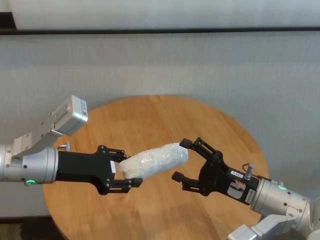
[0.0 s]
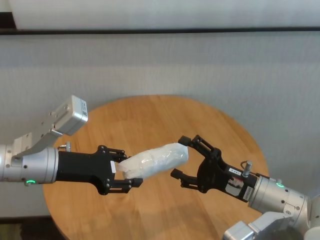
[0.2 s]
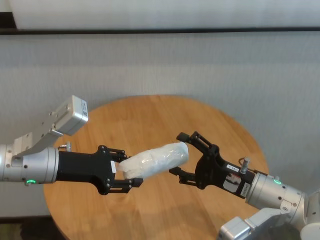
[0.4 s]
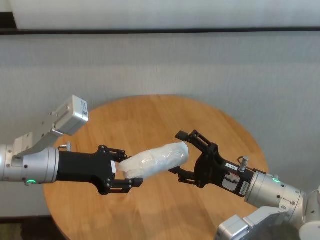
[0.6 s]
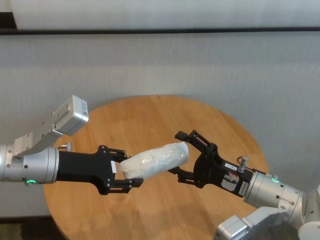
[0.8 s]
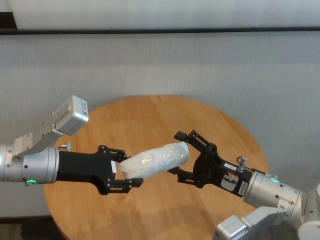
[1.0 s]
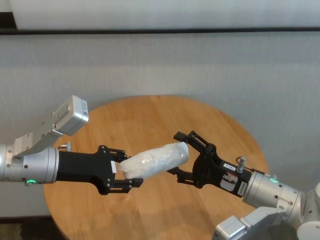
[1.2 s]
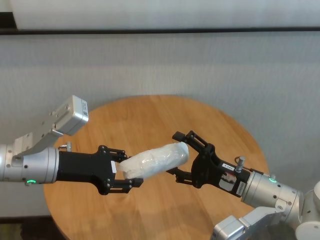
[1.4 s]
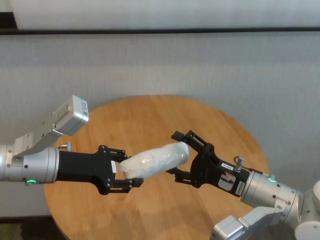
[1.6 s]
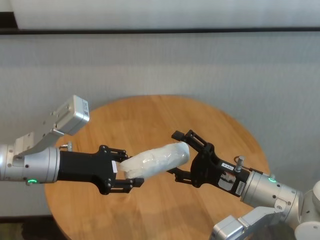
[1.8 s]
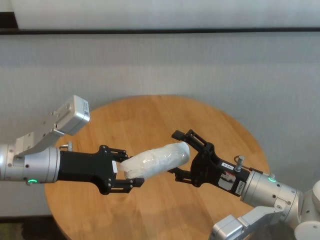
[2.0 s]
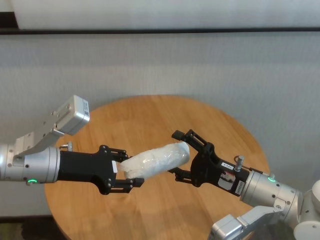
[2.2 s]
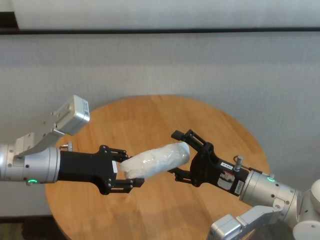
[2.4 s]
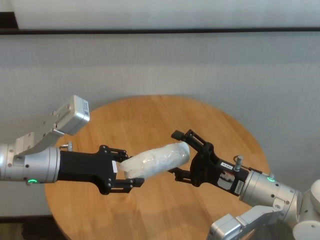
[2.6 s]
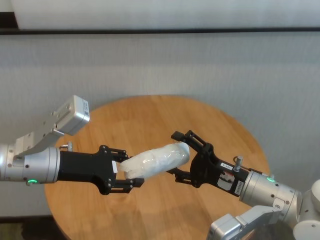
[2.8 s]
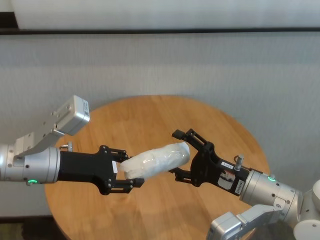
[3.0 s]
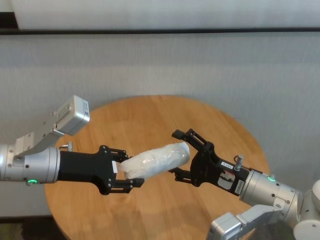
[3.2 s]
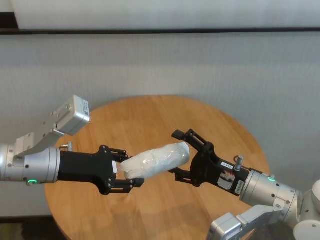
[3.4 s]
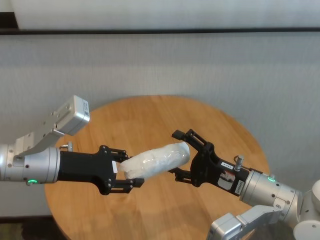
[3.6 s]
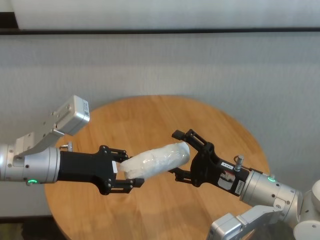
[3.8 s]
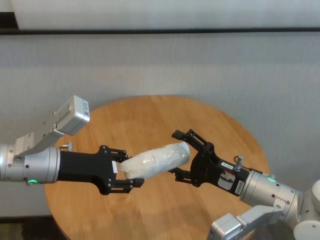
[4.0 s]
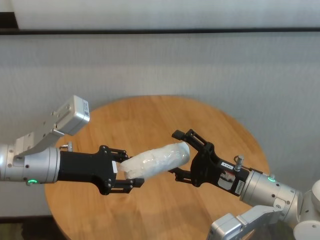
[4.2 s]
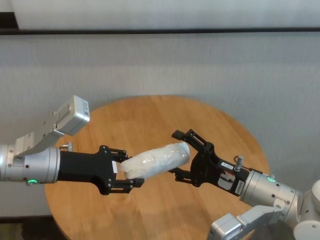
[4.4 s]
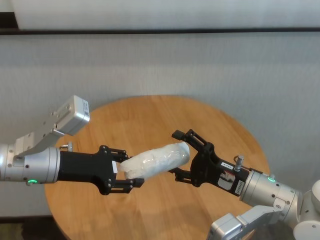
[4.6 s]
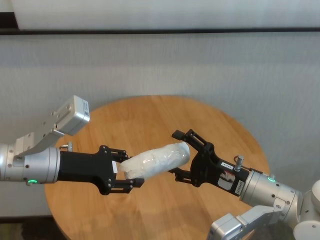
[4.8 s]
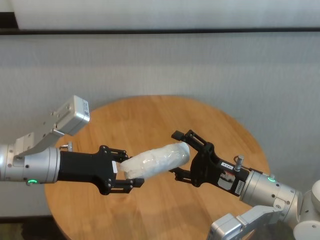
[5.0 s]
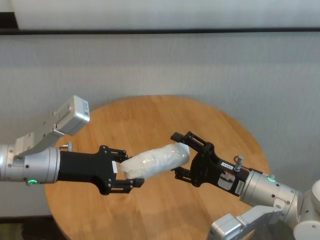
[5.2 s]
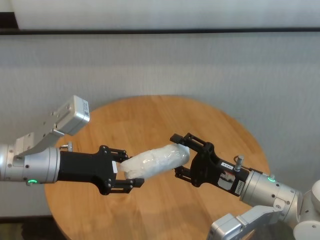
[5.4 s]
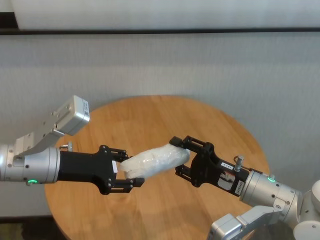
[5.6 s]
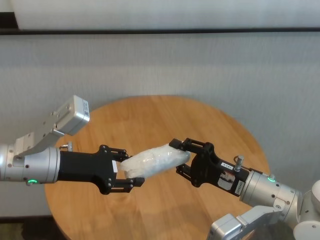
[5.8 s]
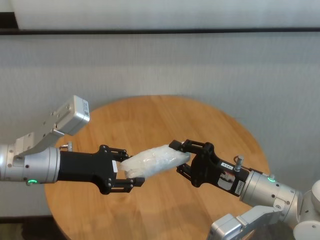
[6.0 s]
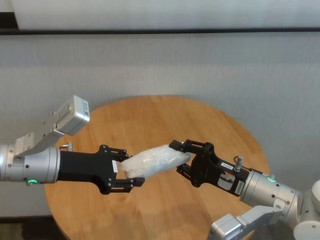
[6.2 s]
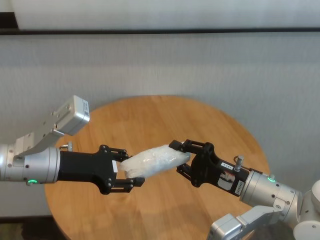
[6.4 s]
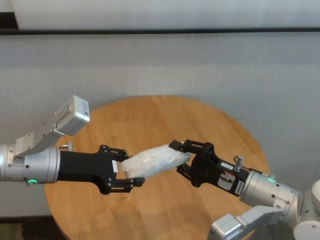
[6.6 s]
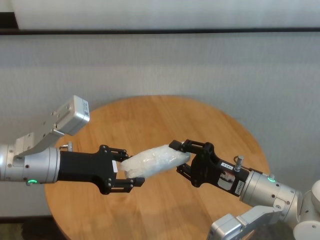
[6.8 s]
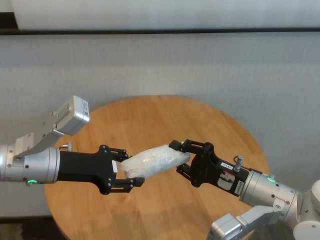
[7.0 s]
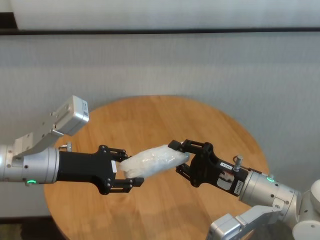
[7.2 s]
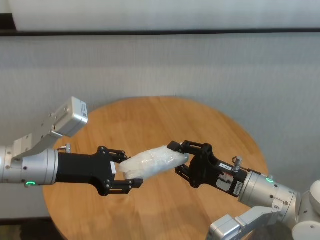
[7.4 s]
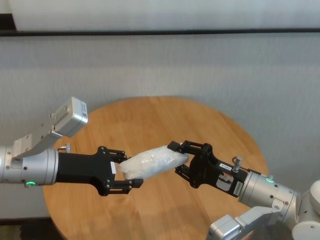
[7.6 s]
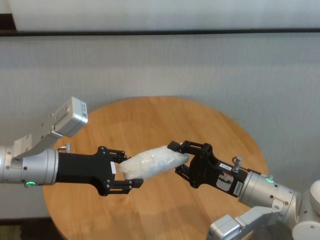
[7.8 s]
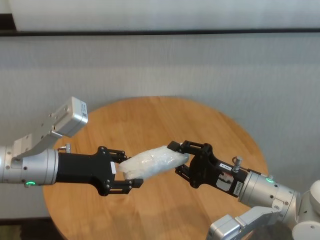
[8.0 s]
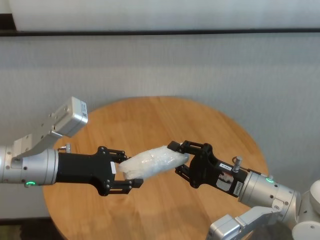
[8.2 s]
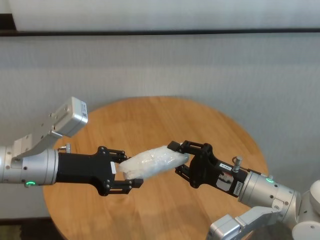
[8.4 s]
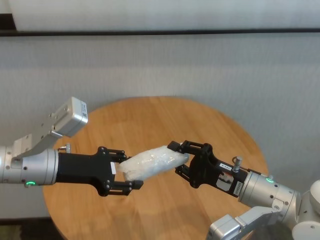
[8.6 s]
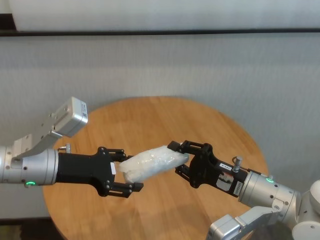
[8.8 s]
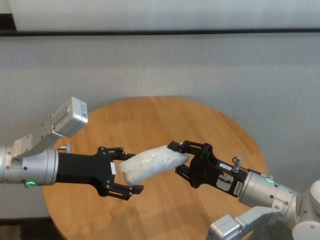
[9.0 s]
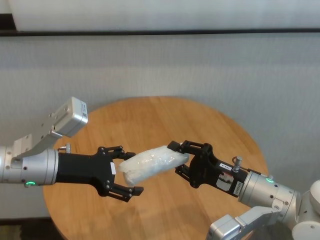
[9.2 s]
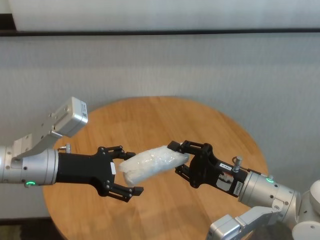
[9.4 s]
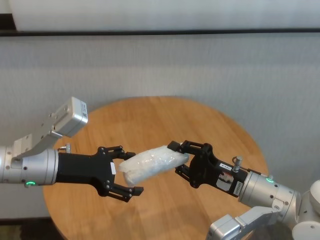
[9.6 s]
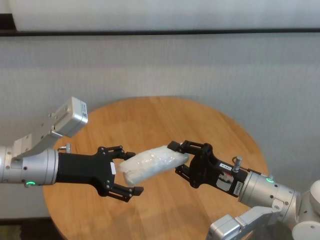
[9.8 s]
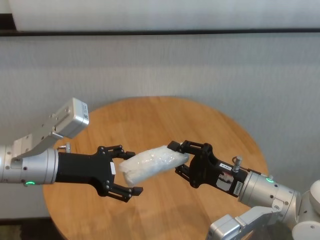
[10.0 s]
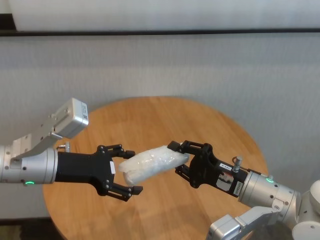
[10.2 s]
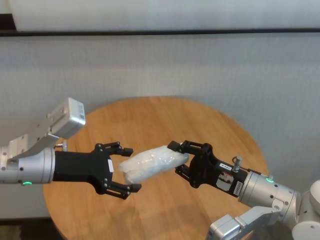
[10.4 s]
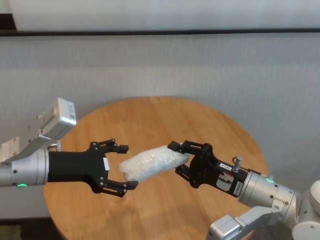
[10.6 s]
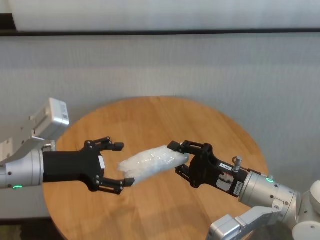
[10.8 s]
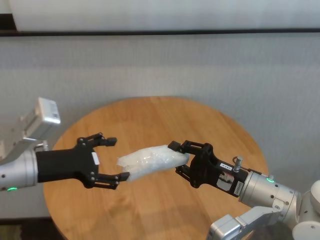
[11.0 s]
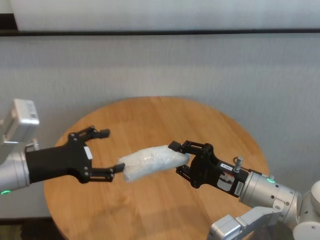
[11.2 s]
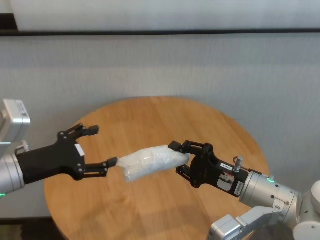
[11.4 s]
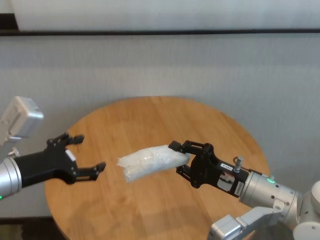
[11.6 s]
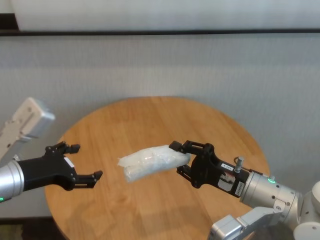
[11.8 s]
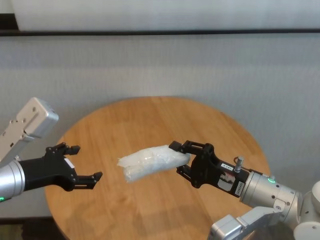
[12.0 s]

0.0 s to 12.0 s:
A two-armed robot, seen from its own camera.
Task of the whole recording: One hand took the sandbag from the other hand and placed it on the table.
Step, 0.0 to 10.6 s: Pass the paper ball to the right gripper.

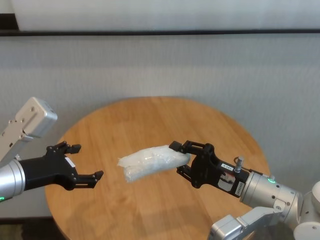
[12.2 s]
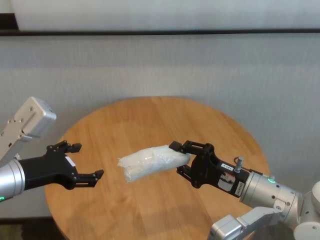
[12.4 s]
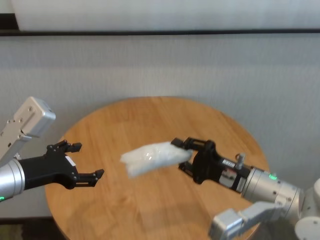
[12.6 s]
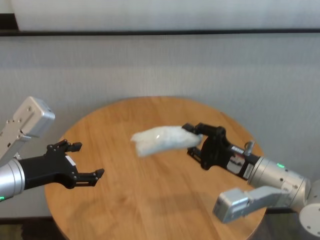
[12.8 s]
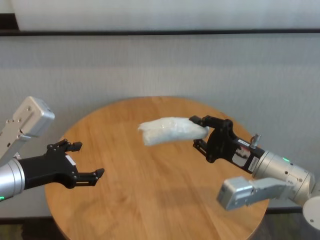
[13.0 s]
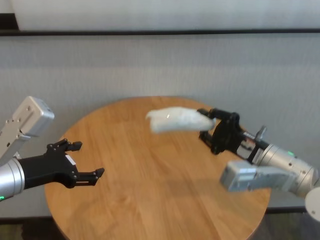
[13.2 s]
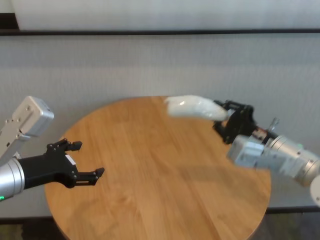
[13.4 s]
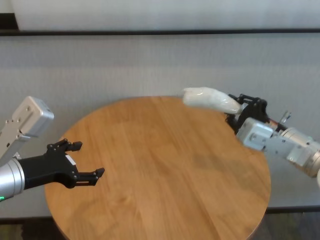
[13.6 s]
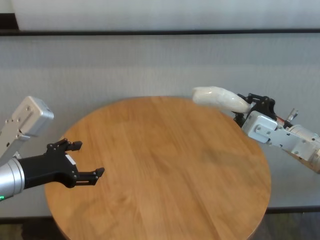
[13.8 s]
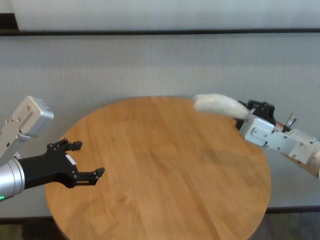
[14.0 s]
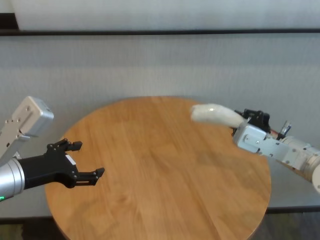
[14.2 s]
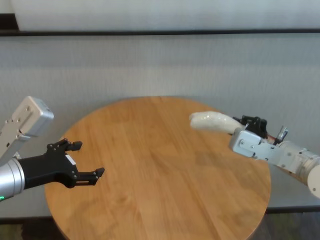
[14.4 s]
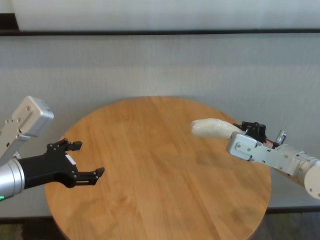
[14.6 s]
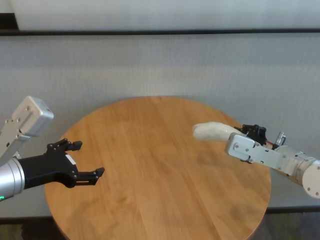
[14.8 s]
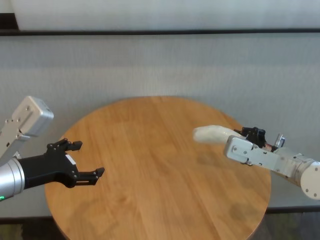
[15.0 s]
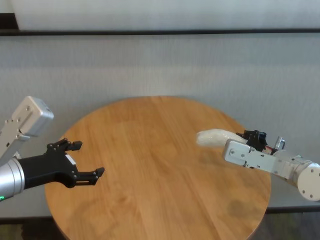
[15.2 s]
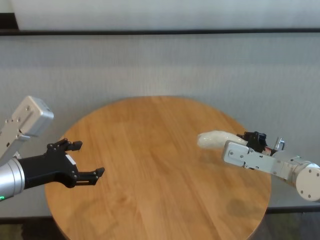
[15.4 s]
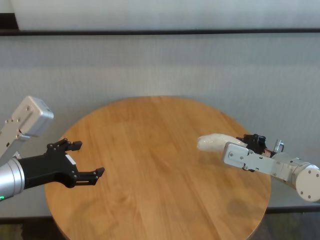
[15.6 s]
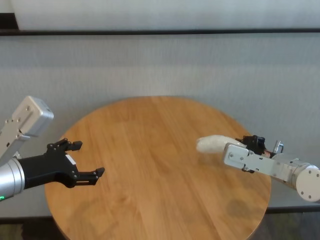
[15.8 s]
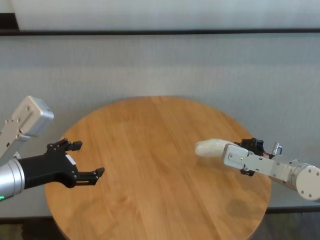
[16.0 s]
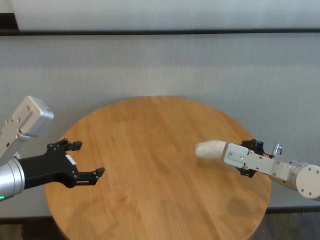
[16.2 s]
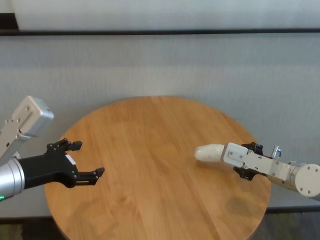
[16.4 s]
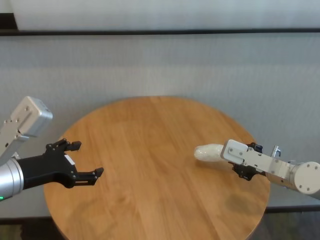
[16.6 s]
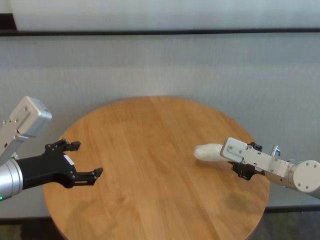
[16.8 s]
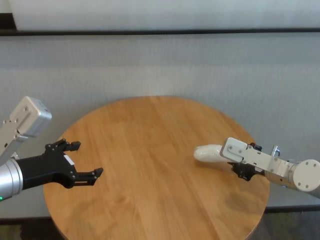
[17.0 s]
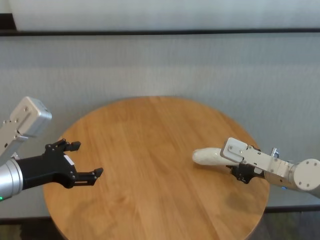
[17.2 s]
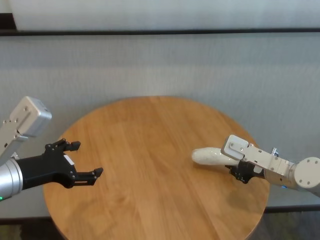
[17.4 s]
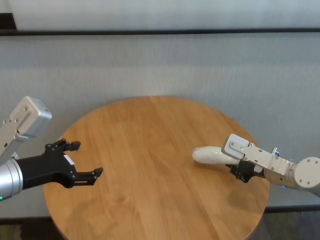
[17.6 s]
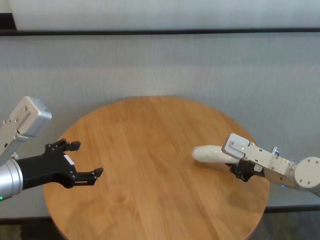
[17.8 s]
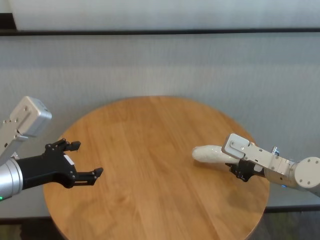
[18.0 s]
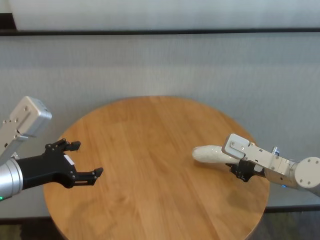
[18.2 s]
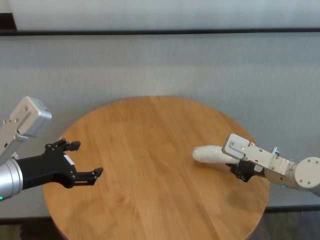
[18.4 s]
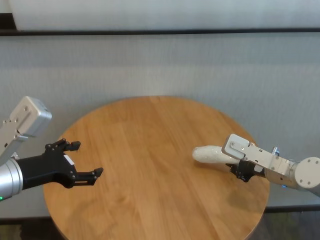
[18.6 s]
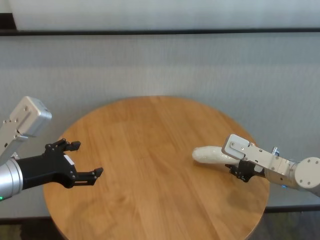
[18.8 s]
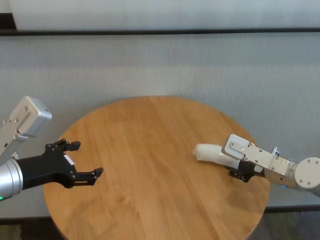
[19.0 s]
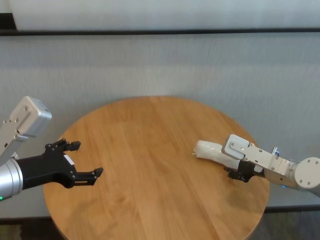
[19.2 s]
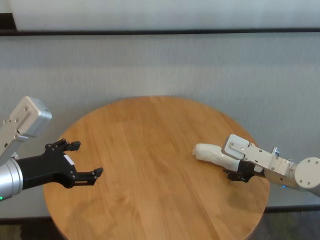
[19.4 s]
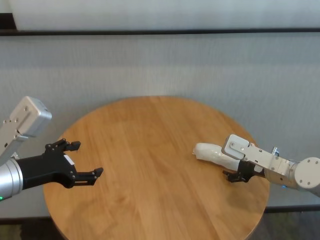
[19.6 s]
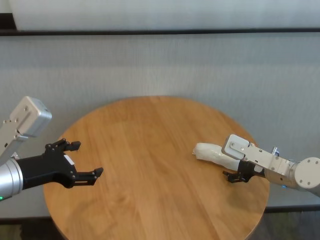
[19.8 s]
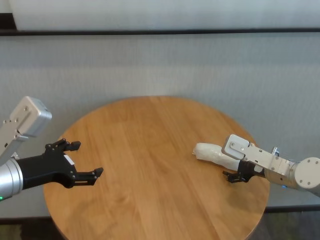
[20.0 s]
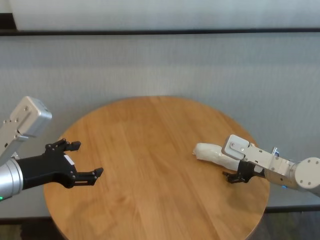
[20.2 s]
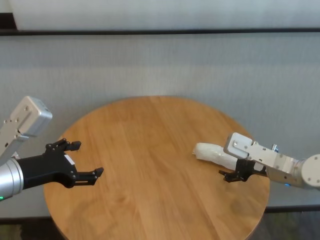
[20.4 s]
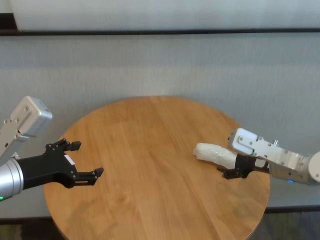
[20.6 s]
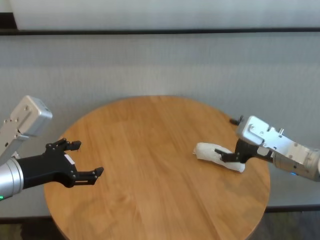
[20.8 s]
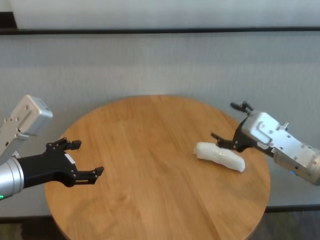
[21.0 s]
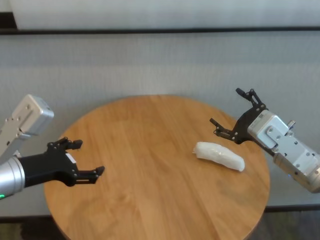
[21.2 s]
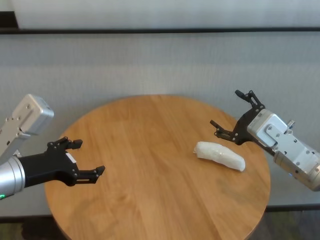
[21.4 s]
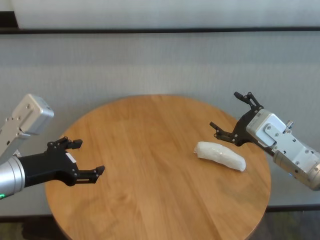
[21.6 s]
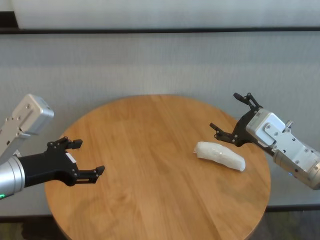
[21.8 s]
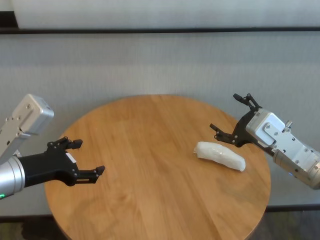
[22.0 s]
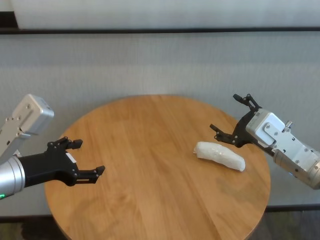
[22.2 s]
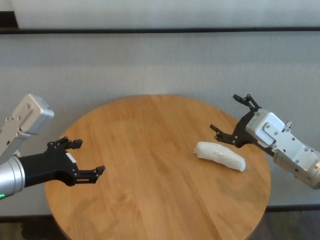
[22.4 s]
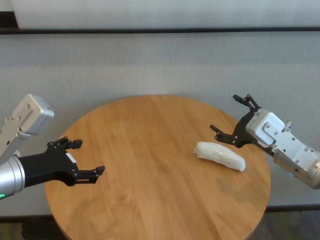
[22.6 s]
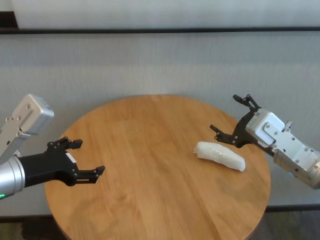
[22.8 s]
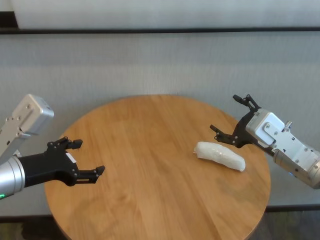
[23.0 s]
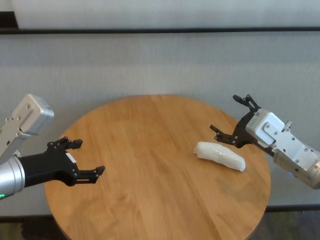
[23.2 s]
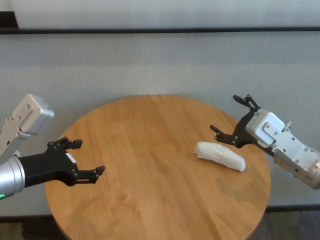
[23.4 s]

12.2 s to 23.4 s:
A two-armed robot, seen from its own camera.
Task of the whole recording: One hand took the sandbag from the other hand and placed it on the table.
Step, 12.2 to 19.4 s: Place the paper ball on the table with right gripper.
